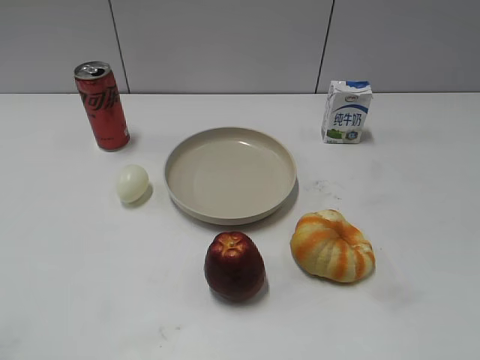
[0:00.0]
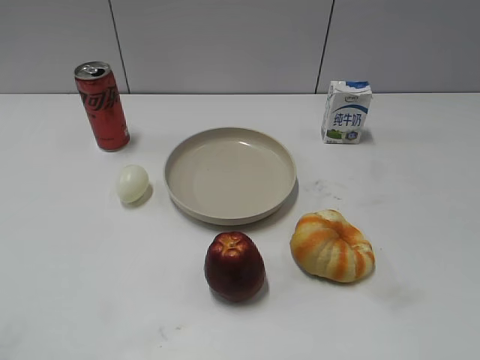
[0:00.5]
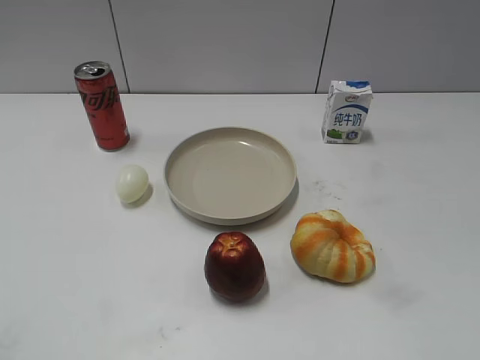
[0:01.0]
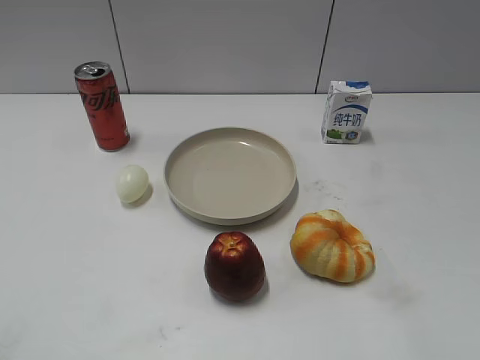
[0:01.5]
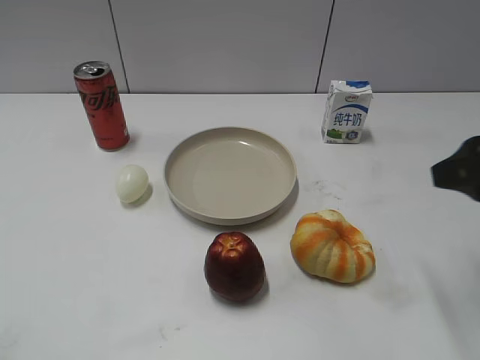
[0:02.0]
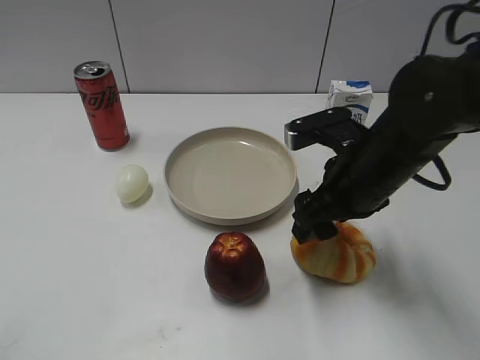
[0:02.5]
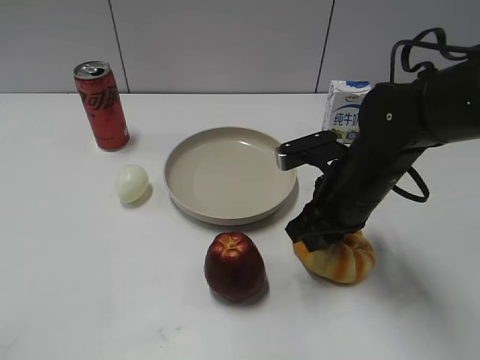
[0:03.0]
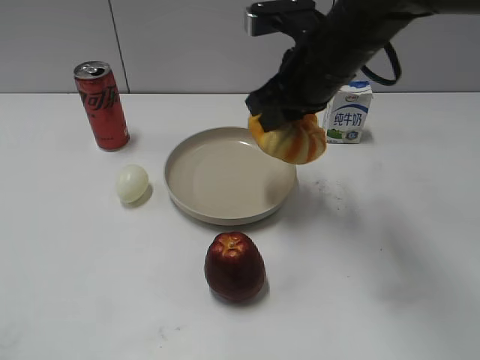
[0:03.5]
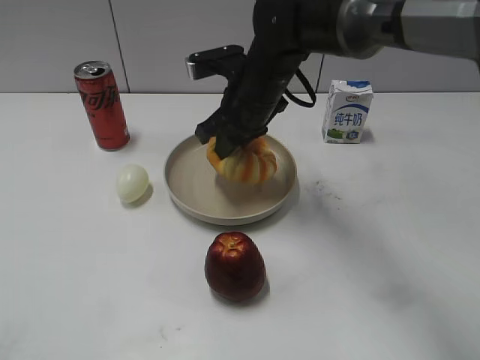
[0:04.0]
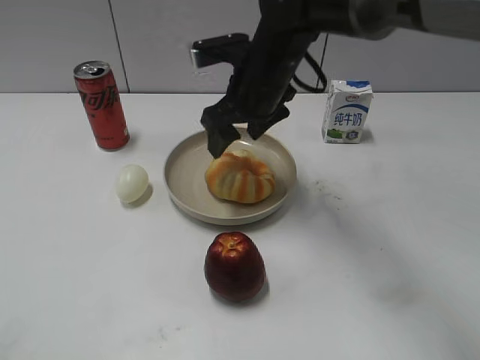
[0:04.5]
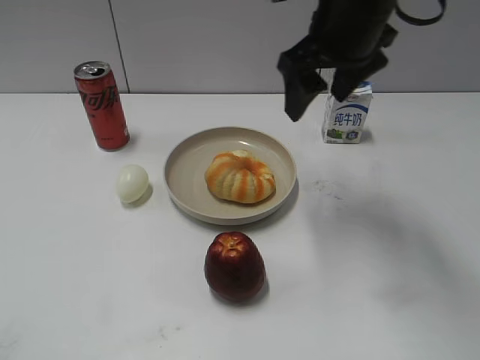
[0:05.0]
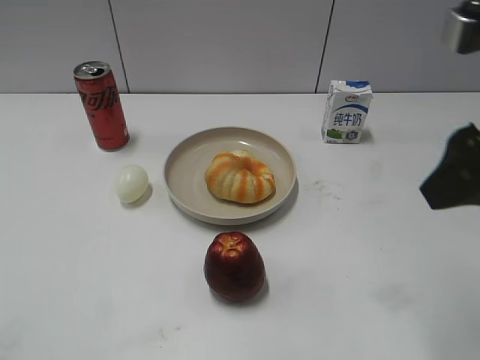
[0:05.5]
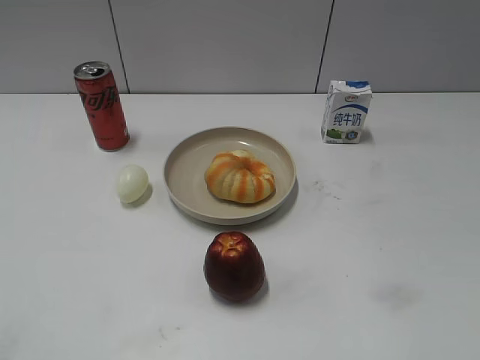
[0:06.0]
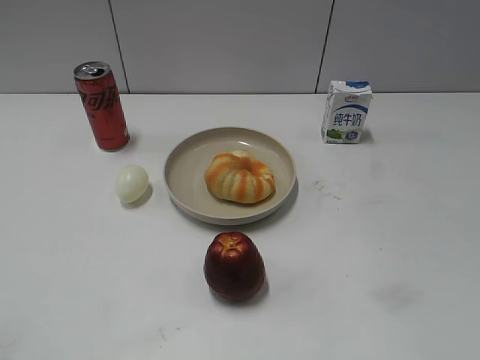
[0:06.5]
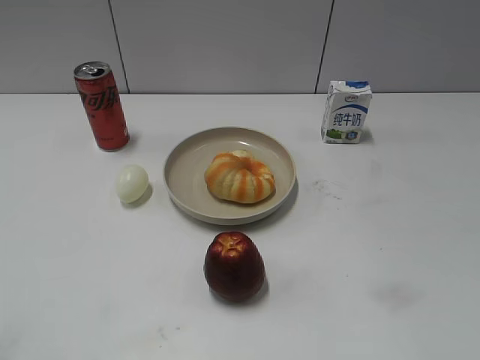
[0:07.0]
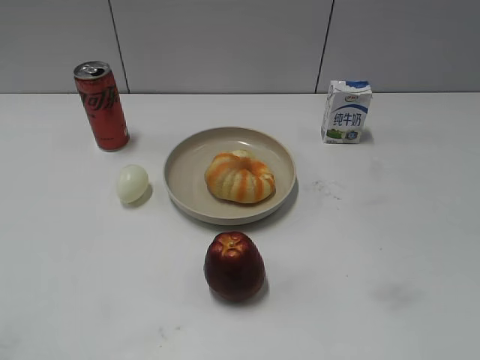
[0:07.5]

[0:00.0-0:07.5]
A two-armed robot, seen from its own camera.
Step, 0:01.0 to 0:02.5: Grasp the round bread with right gripper.
Step, 0:03.5 to 0:04.5: Place the round bread on the plate with right gripper.
0:02.0 to 0:04.0: The right gripper goes about 30 cm to the left and forward, and closes its fingers.
0:04.0 to 0:05.5: The right gripper goes some 35 cm backward, to the right and upward, and opens.
0:05.5 to 0:07.5: The right gripper shifts some 20 cm backward and to the right.
